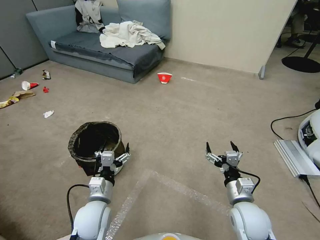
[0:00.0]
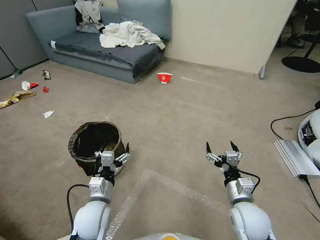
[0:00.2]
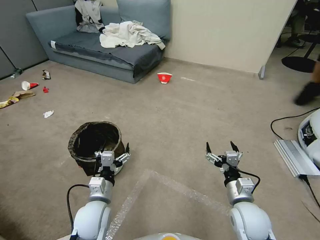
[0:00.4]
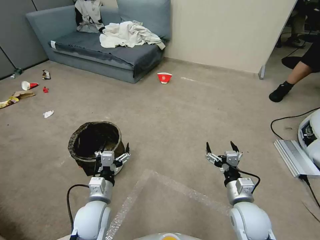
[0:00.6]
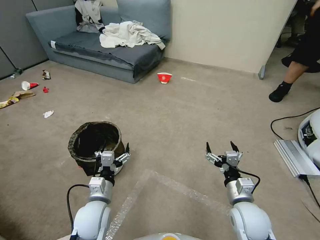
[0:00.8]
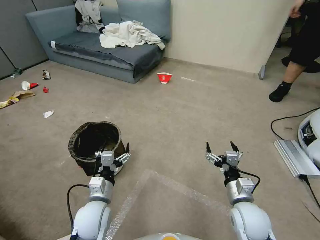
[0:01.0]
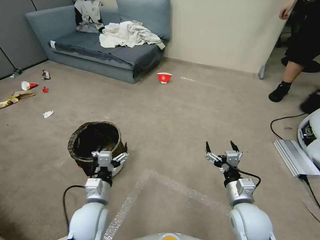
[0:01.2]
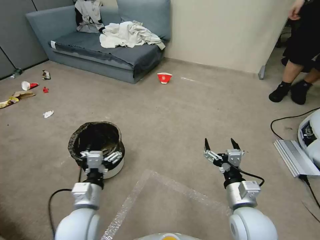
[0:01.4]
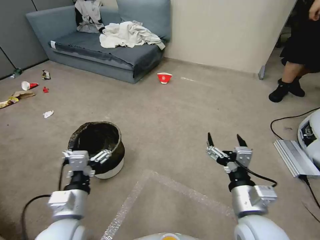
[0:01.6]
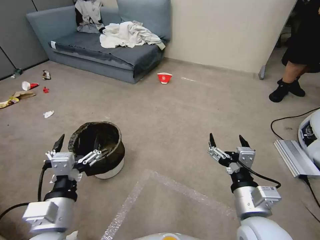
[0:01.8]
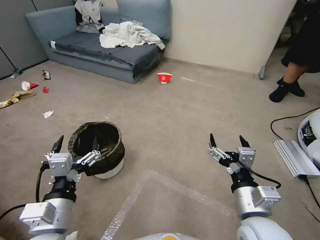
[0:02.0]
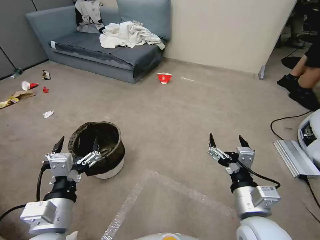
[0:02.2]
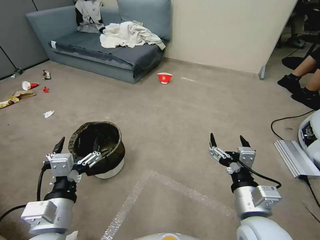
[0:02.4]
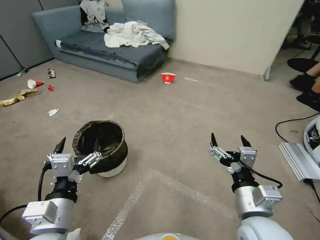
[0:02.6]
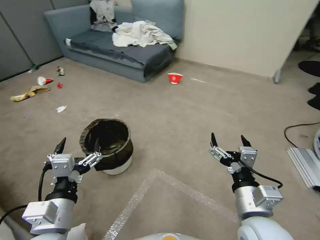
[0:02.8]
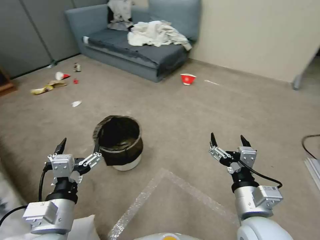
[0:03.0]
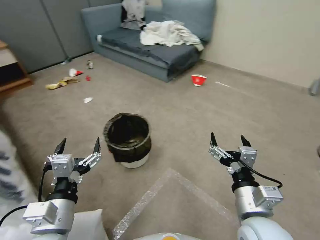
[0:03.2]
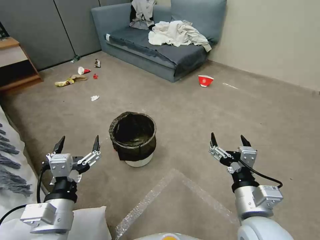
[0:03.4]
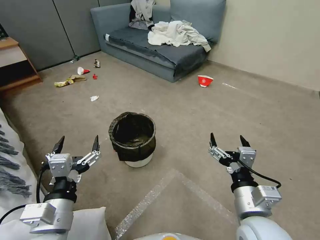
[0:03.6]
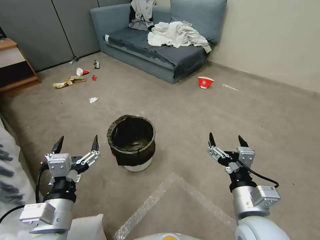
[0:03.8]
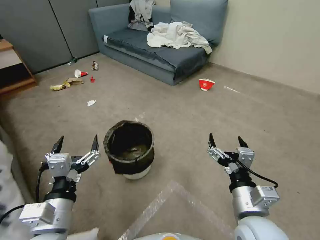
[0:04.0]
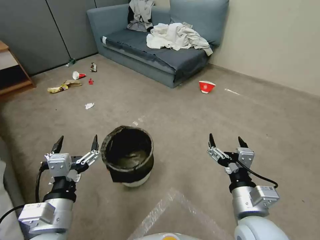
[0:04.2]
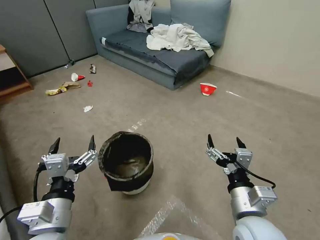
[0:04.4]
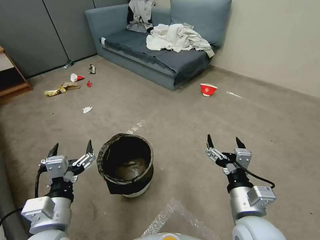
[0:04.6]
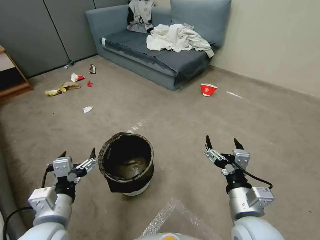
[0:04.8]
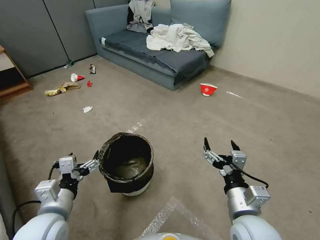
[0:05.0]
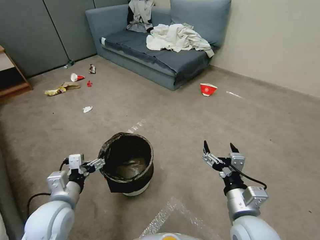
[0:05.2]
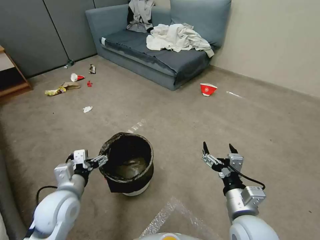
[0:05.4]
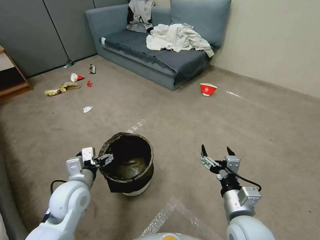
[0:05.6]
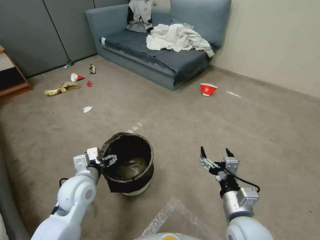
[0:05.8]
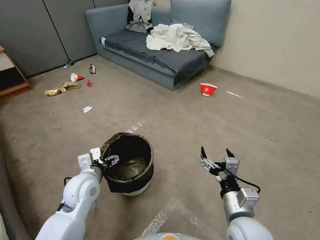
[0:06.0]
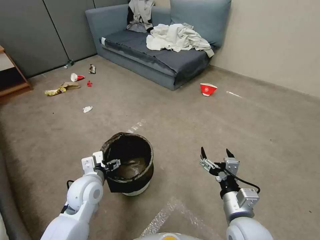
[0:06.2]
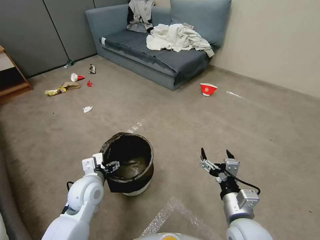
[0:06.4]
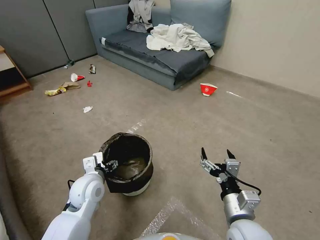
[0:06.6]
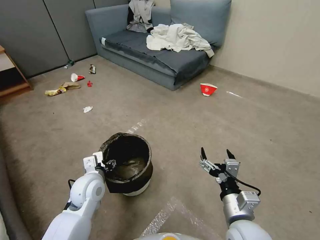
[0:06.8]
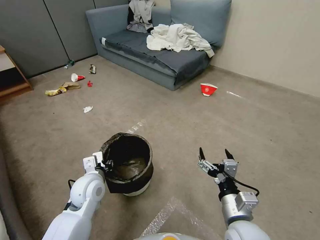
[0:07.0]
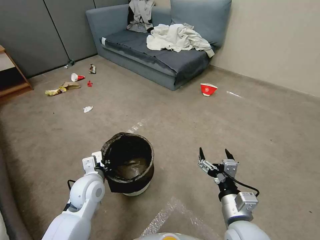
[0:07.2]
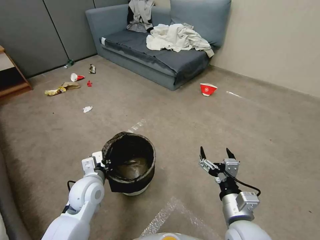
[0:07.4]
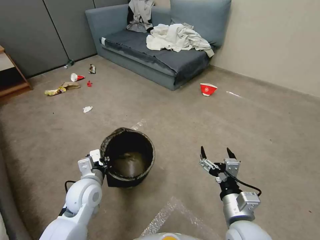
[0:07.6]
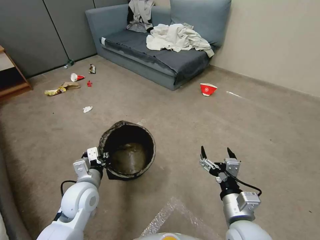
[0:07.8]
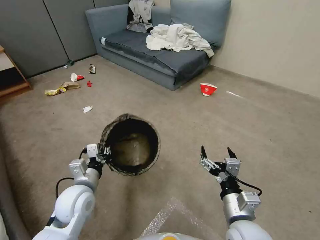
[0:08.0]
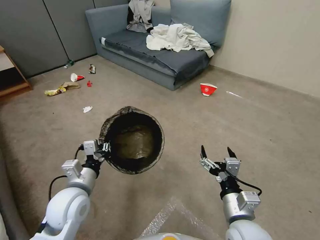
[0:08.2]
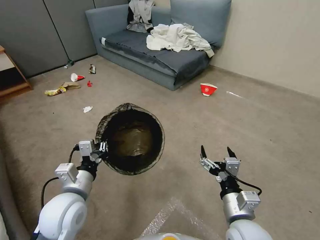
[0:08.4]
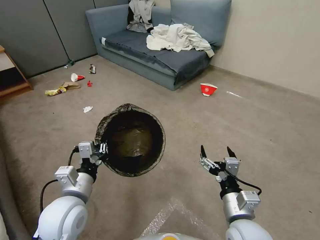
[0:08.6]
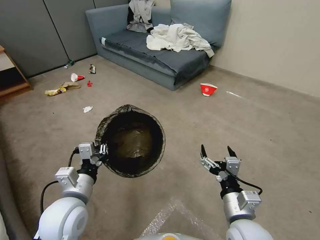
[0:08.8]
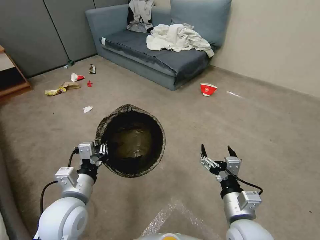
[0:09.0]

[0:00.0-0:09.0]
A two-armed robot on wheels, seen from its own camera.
Task of the whole recording: Pick up the trash can from the floor.
0:01.6 to 0:03.0: The left gripper changes place by approximately 5 cm.
0:04.4 to 0:06.0: The left gripper moves forward and downward, approximately 20 cm. The right gripper is displaced downward by some 5 cm.
0:06.0 to 0:07.6: The left gripper closes up.
0:07.6 to 0:09.0: The left gripper travels backward and upward by some 10 cm.
